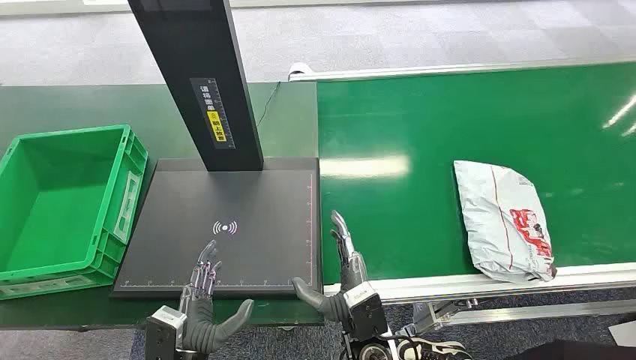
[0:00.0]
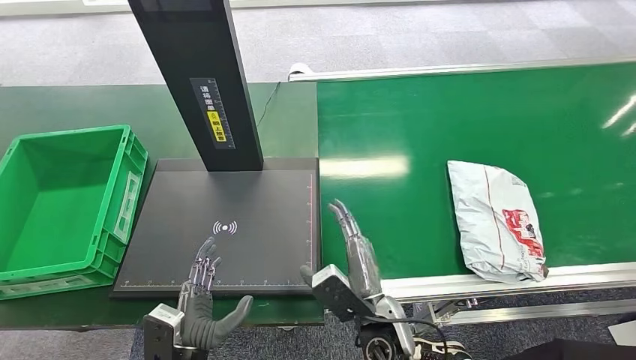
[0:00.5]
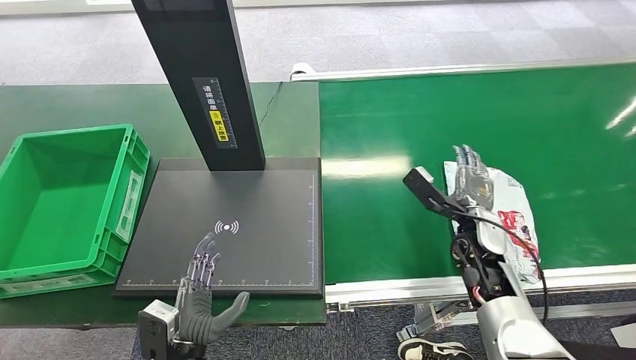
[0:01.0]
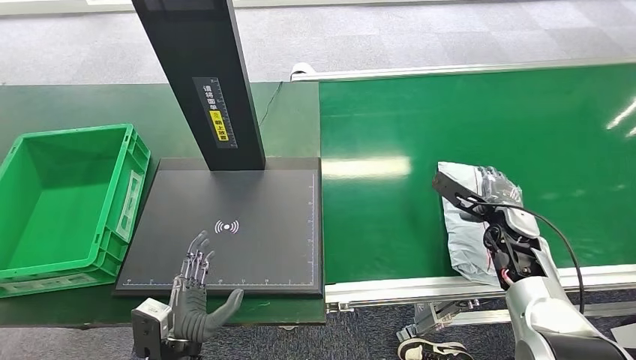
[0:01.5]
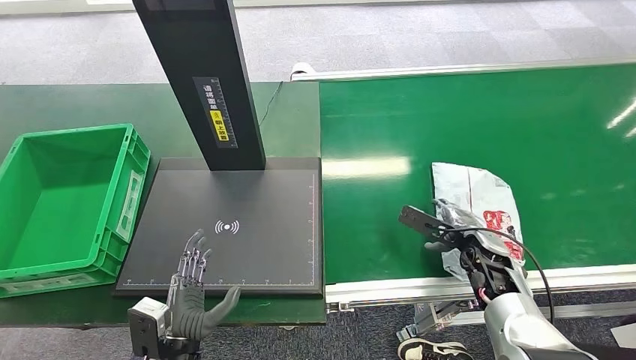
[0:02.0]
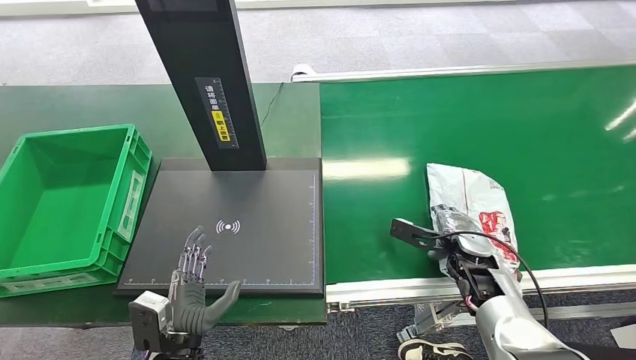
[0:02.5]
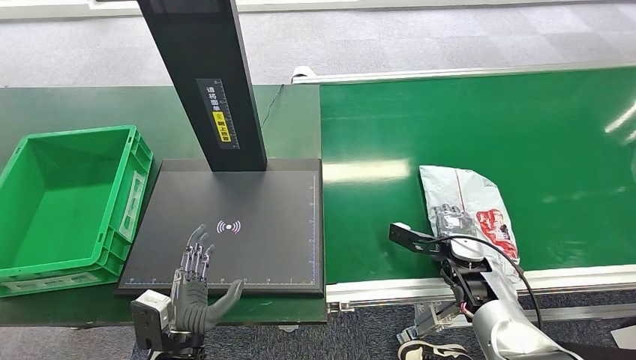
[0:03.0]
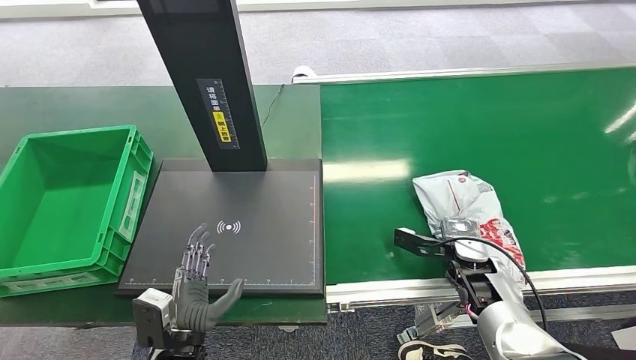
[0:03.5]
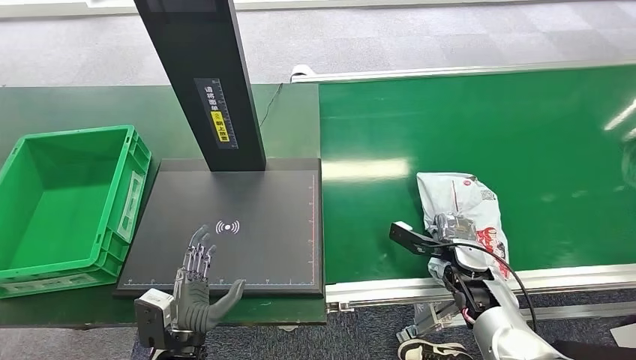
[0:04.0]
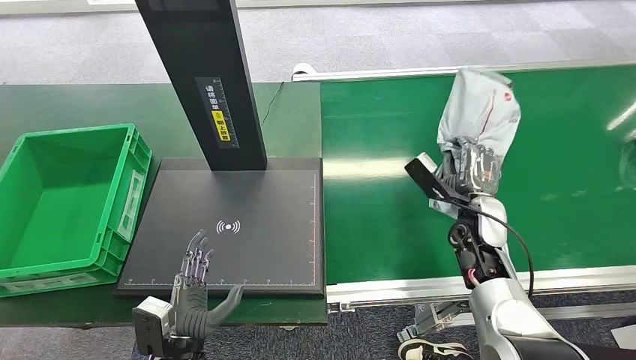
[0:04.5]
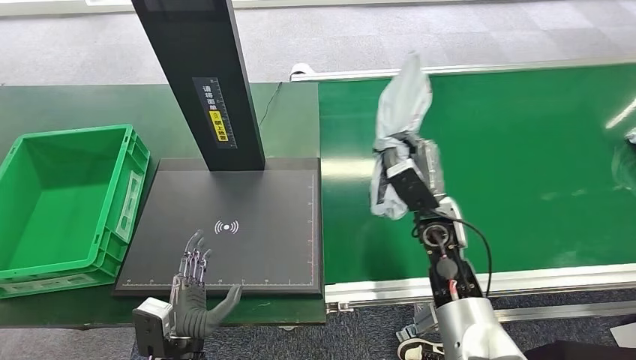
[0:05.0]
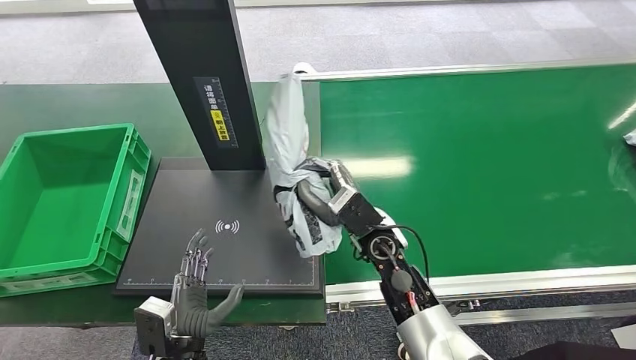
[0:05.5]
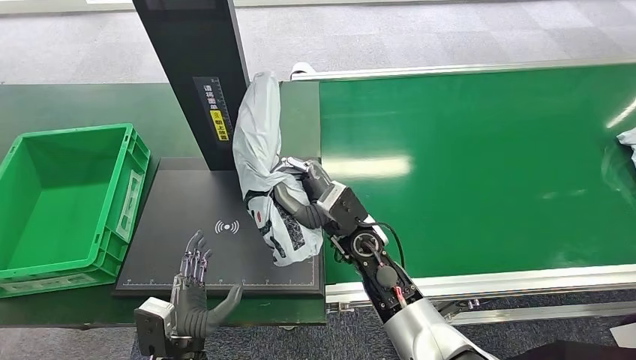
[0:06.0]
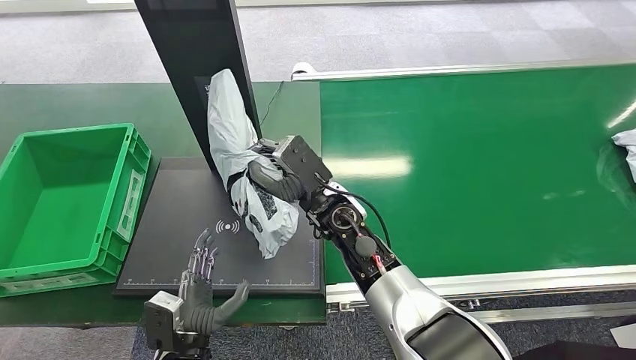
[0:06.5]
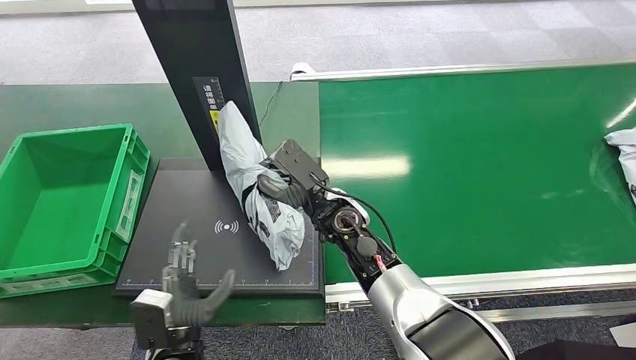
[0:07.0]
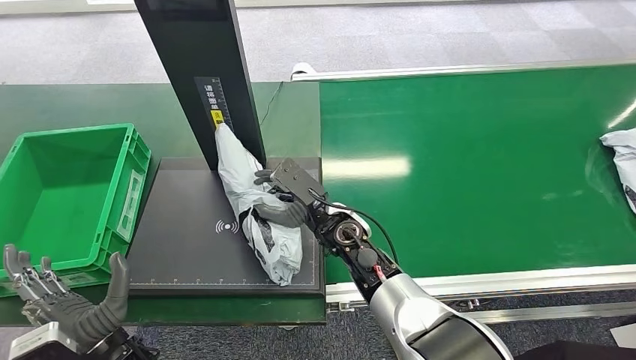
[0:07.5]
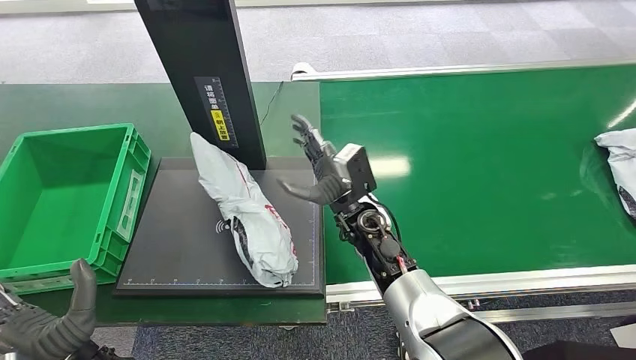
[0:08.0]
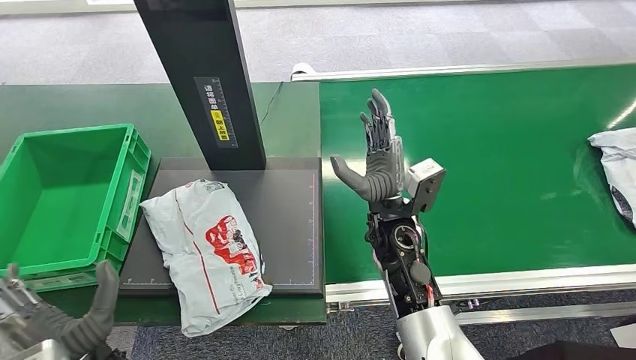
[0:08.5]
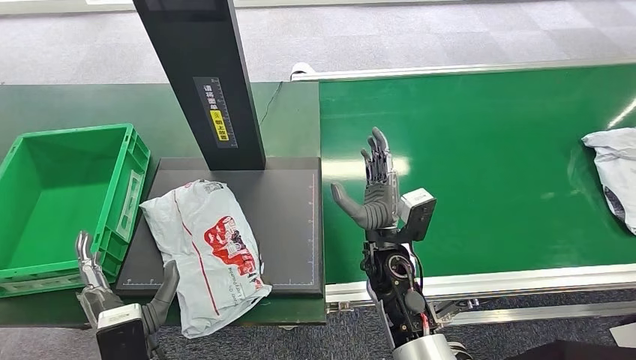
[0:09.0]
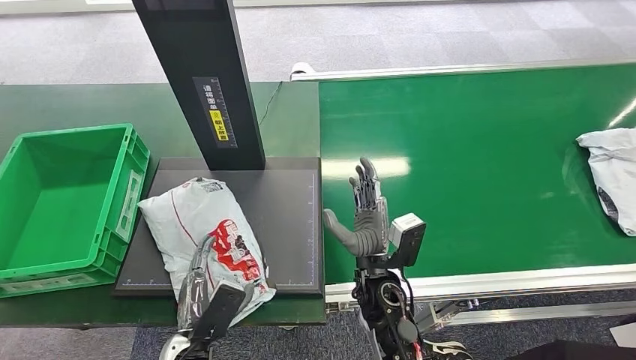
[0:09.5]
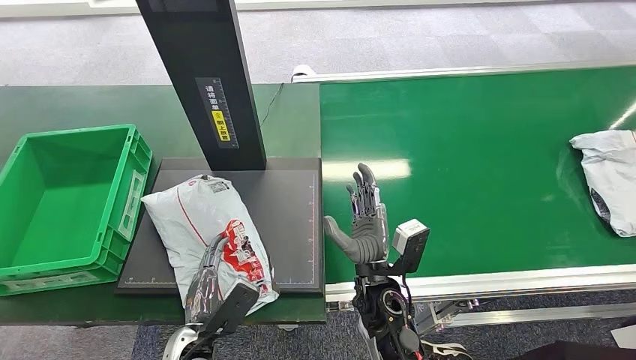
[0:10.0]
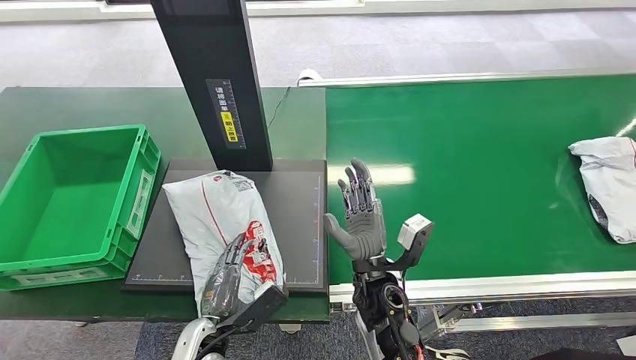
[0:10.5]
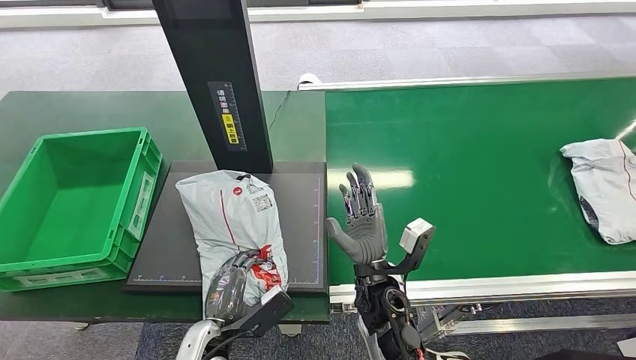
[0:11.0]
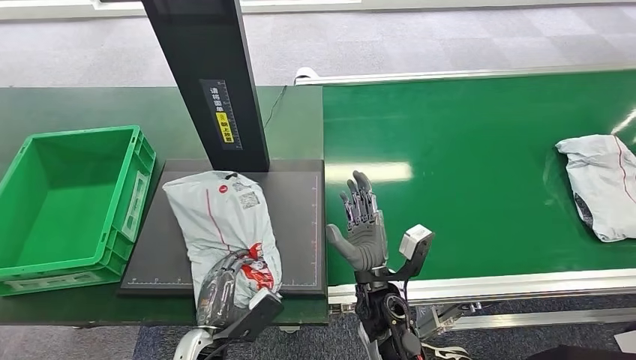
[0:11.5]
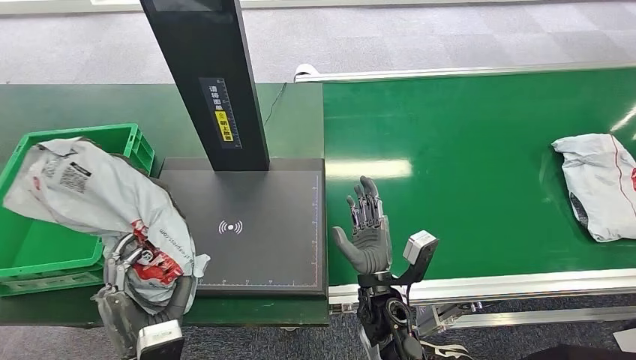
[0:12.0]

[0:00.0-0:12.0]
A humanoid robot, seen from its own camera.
Step, 0:00.0 to 0:05.0: Pick up the package from the conveyor belt.
Step, 0:05.5 to 0:08.5: Place the package onto the inbound machine.
0:06.0 to 0:08.0: The left hand moves upward and to the left, roughly 10 cm.

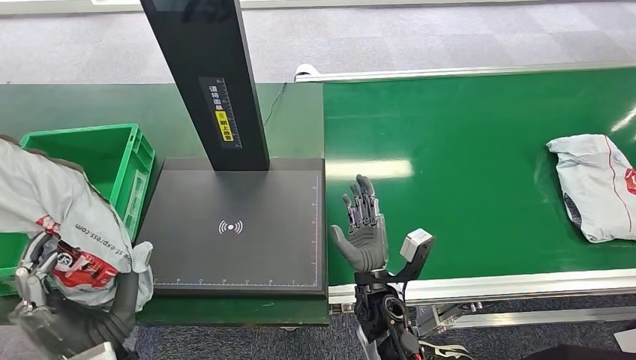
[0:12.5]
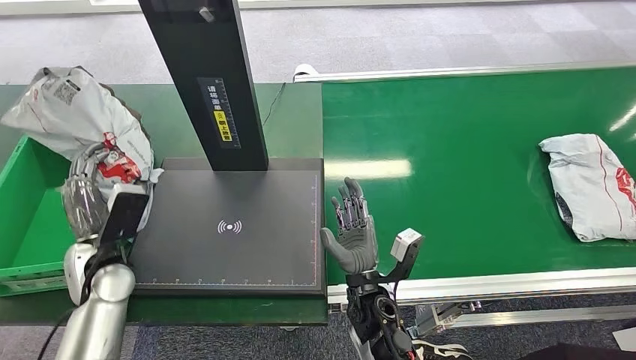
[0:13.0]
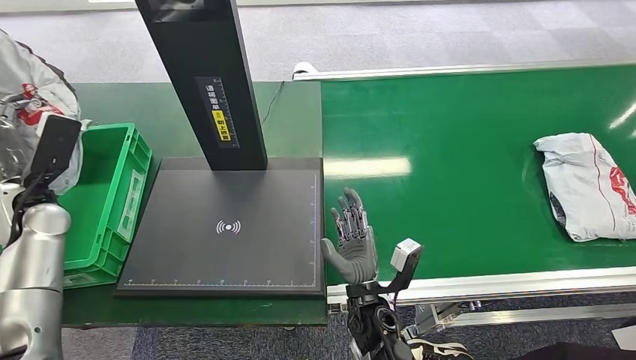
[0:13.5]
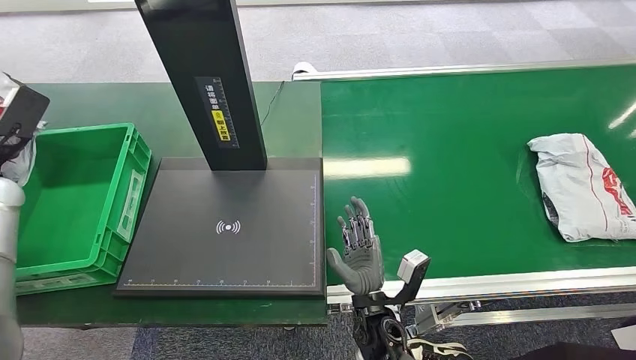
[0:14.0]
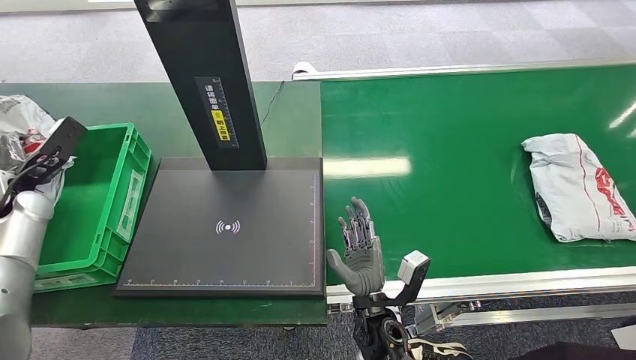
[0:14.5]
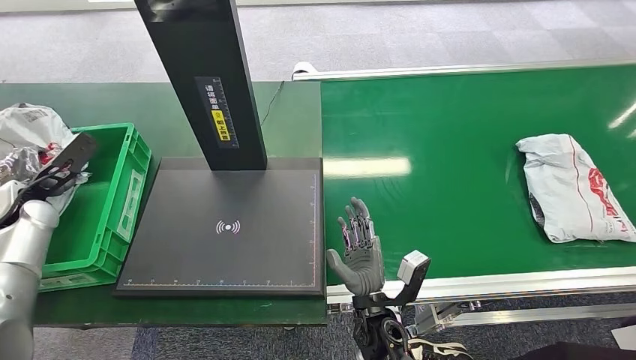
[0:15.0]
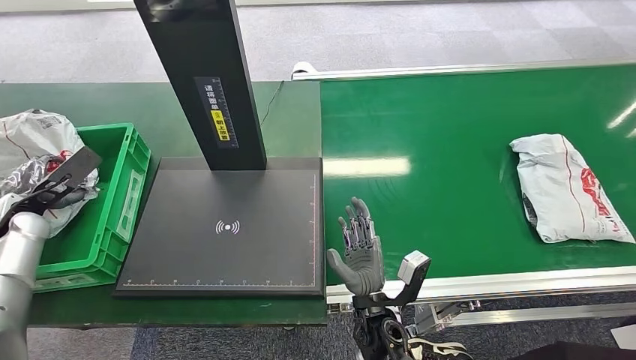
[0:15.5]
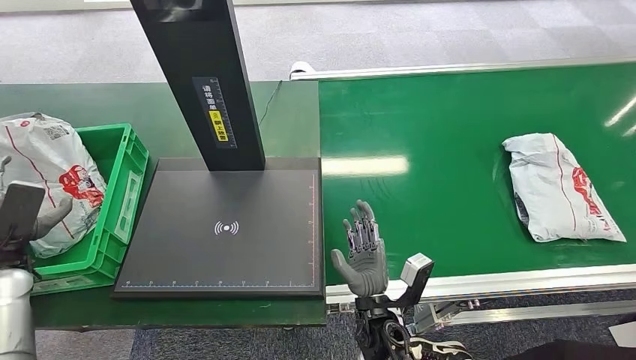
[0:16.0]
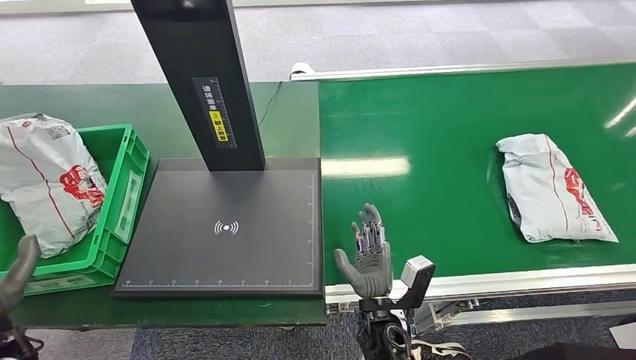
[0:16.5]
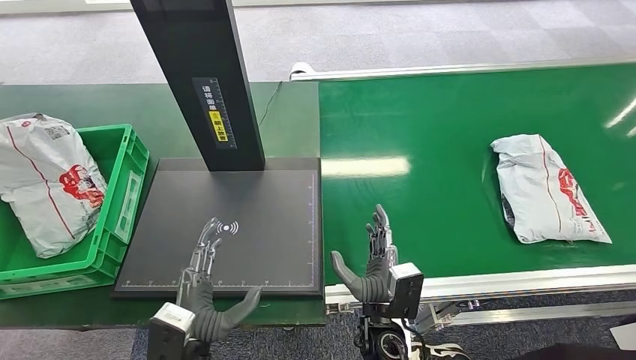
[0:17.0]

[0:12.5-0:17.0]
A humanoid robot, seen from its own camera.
Step, 0:13.0 to 0:17.0: Place the package into the parcel locker.

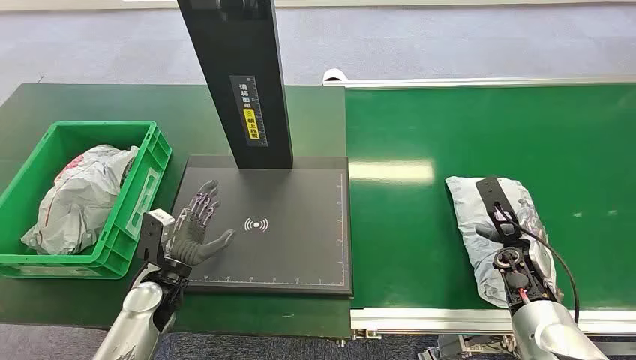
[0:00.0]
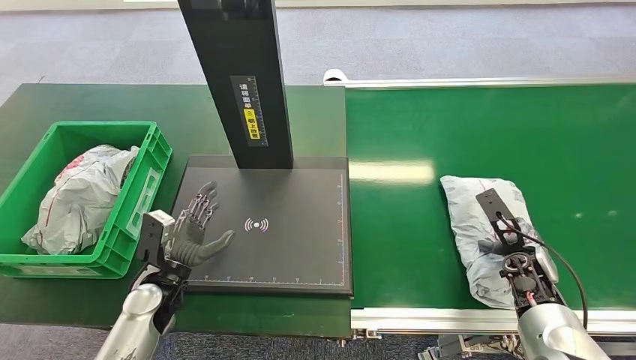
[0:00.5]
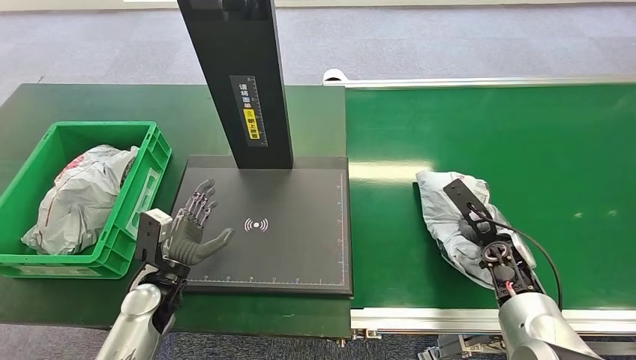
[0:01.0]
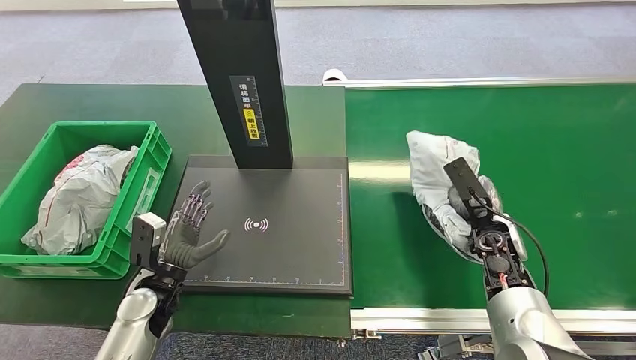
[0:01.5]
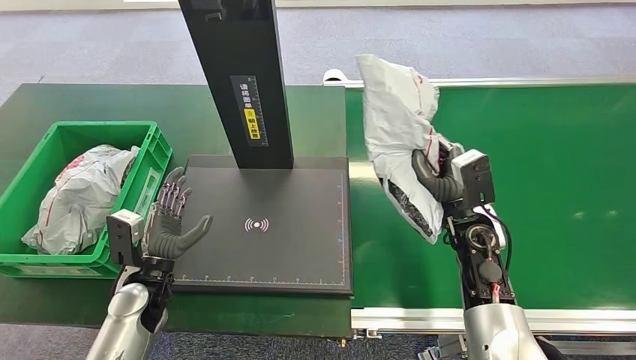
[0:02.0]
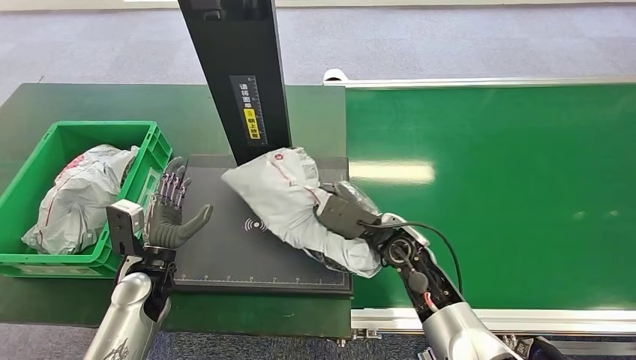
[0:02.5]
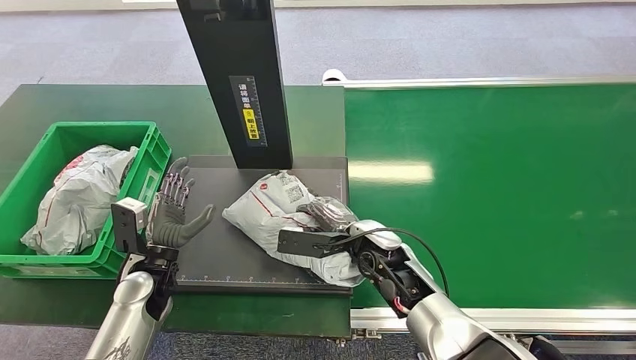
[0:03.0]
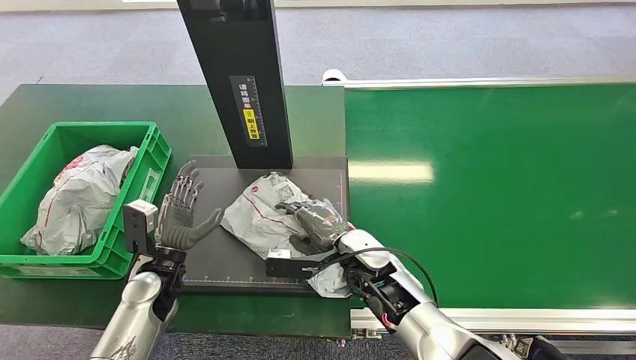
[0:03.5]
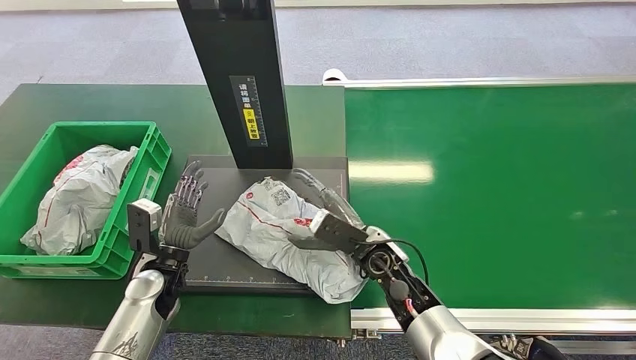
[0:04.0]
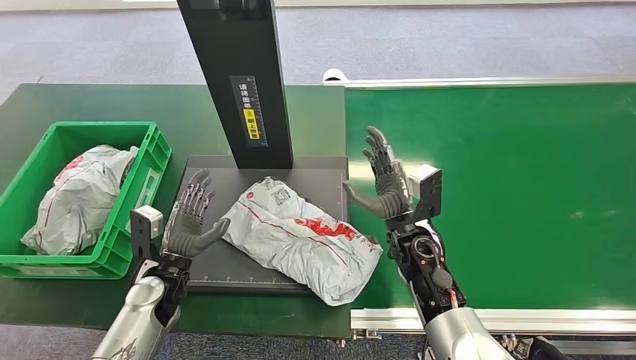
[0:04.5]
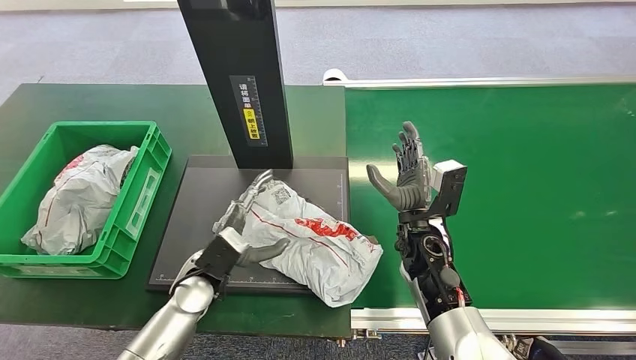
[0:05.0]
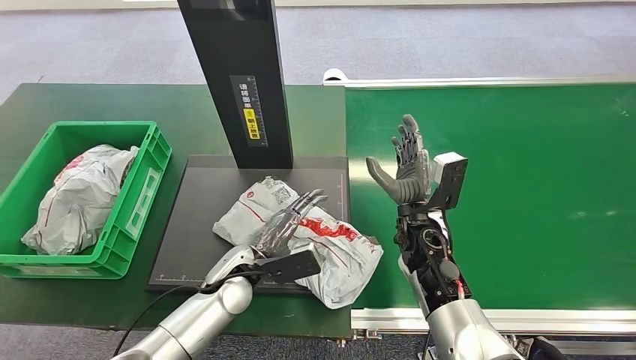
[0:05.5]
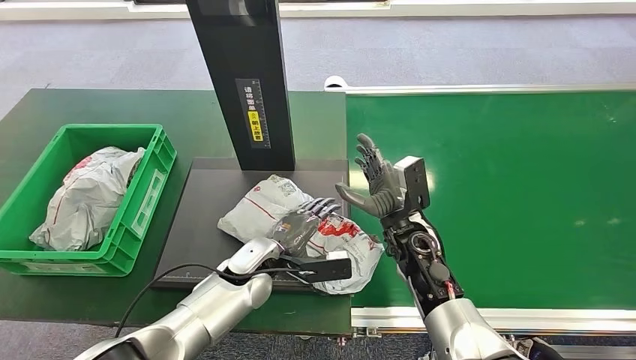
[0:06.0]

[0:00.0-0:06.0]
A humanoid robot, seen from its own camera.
Step, 0:00.0 to 0:01.5: Pick up the package from the conveyor belt.
Step, 0:02.5 to 0:03.5: Place the package onto the inbound machine.
